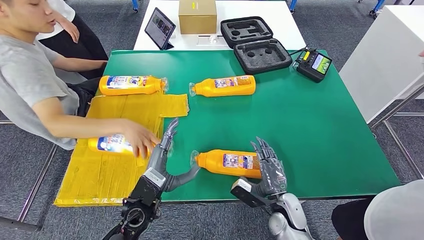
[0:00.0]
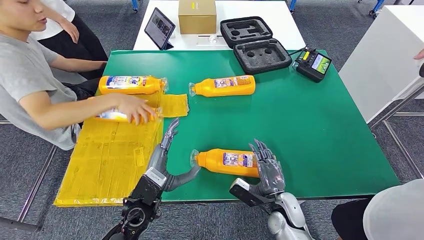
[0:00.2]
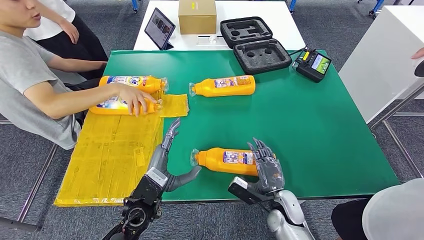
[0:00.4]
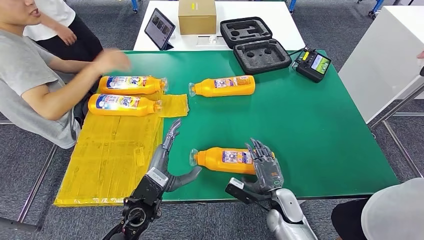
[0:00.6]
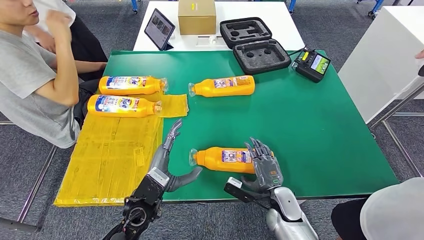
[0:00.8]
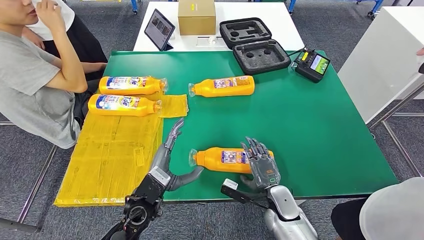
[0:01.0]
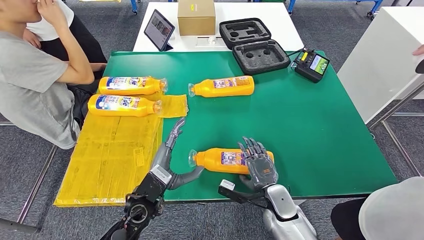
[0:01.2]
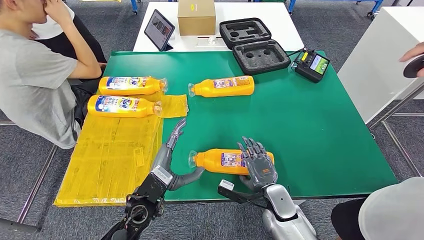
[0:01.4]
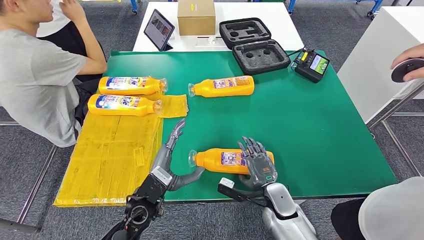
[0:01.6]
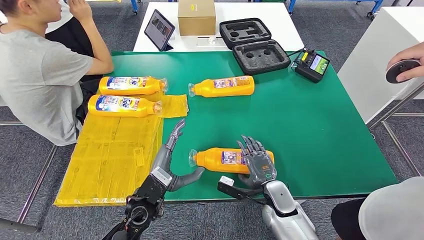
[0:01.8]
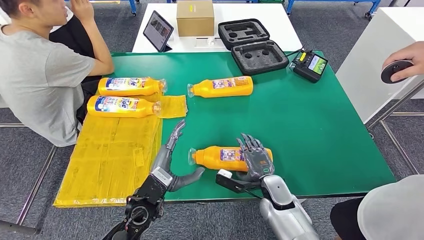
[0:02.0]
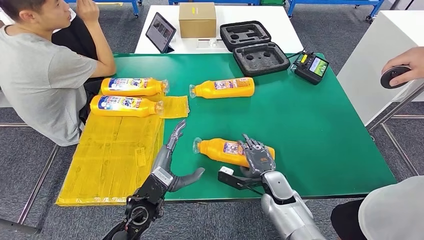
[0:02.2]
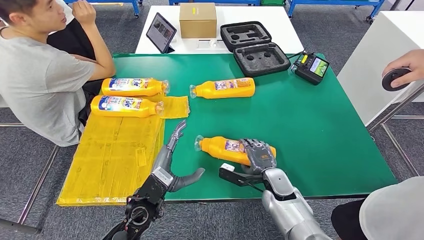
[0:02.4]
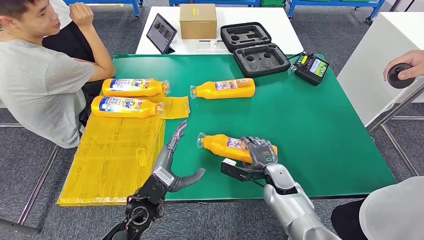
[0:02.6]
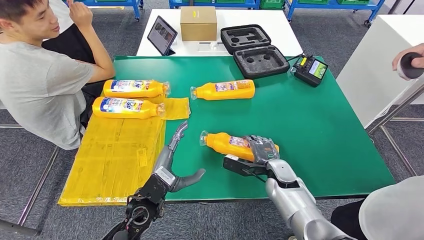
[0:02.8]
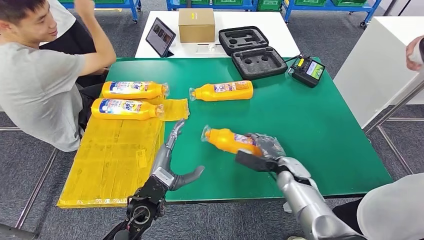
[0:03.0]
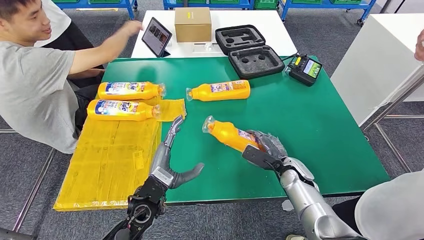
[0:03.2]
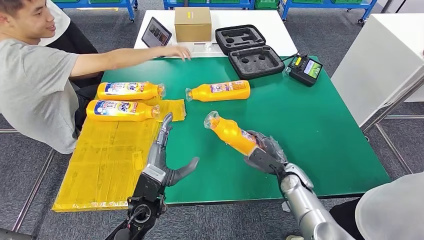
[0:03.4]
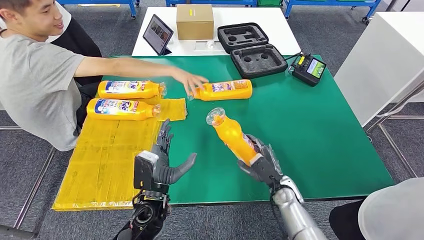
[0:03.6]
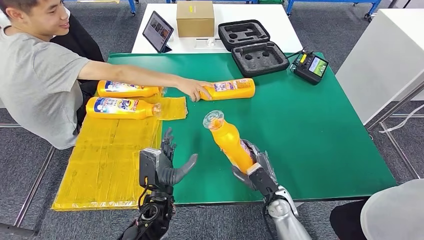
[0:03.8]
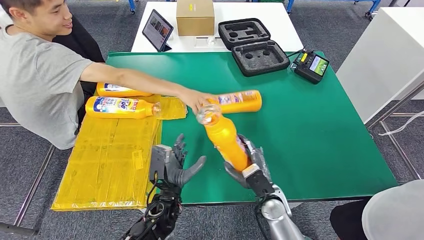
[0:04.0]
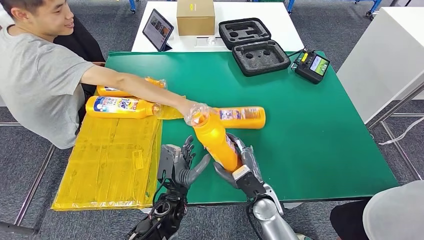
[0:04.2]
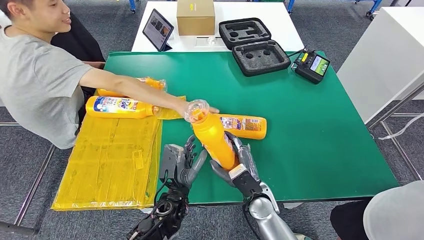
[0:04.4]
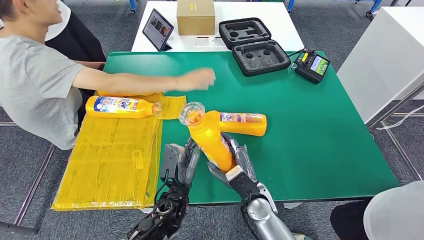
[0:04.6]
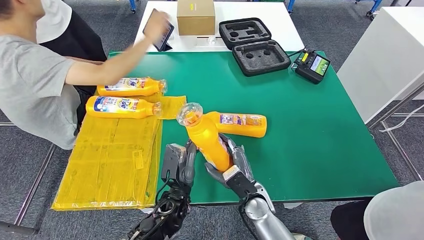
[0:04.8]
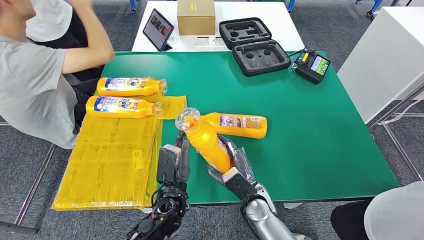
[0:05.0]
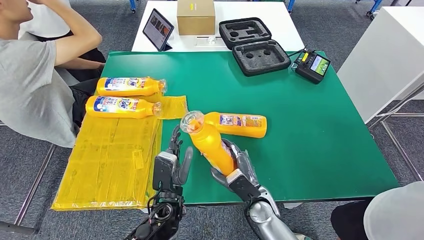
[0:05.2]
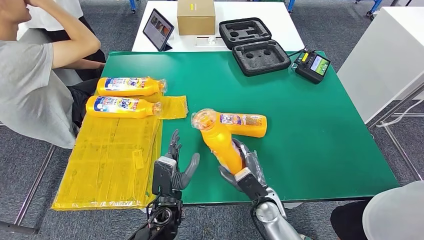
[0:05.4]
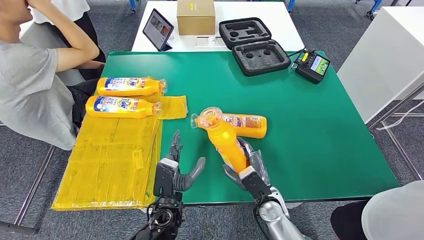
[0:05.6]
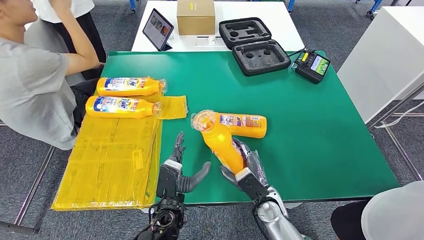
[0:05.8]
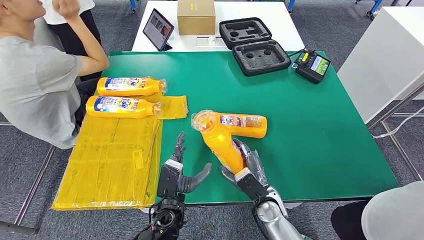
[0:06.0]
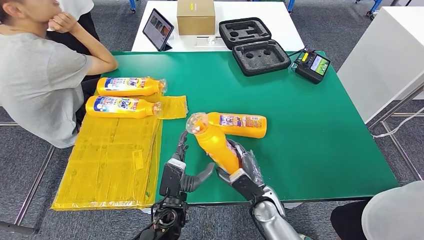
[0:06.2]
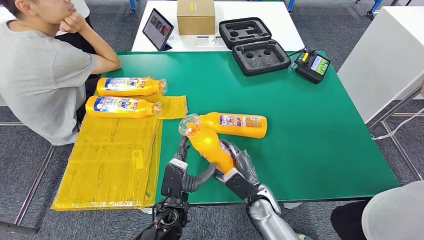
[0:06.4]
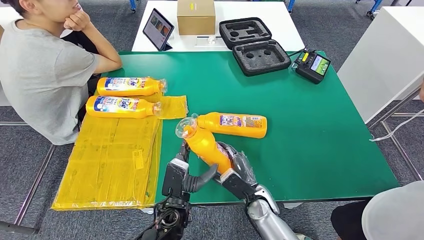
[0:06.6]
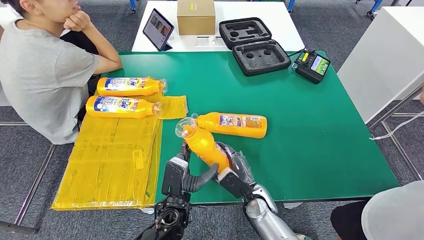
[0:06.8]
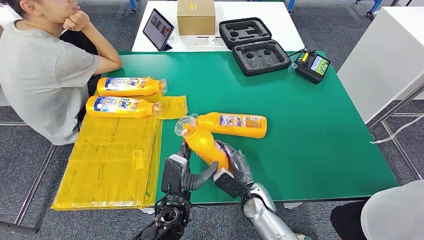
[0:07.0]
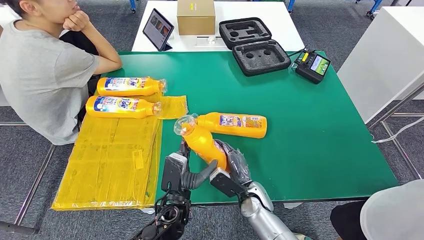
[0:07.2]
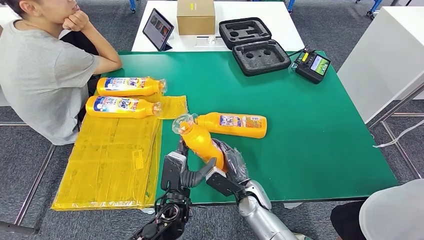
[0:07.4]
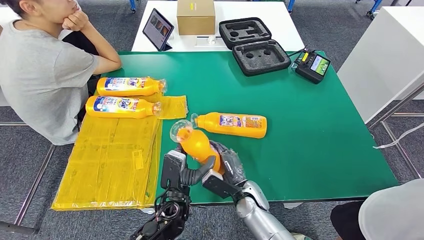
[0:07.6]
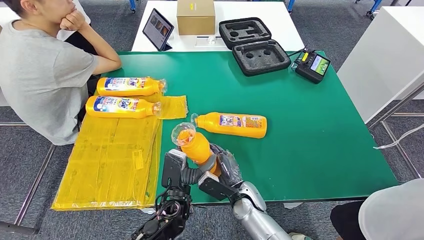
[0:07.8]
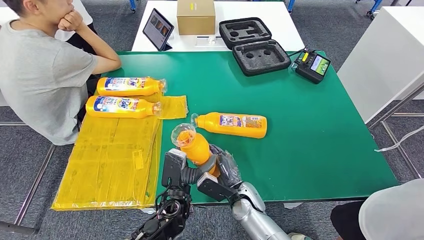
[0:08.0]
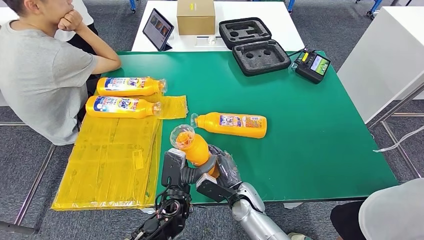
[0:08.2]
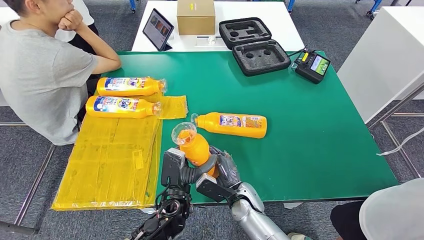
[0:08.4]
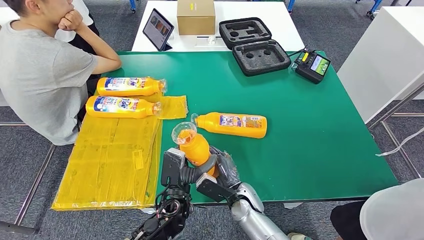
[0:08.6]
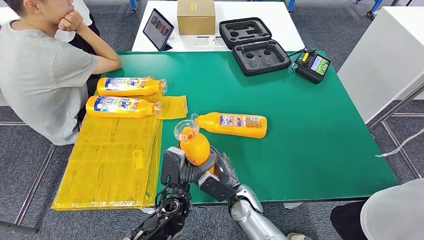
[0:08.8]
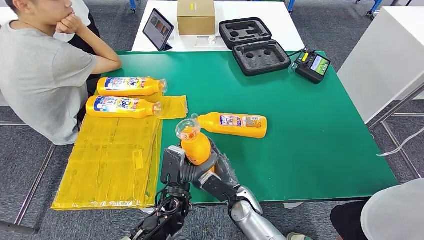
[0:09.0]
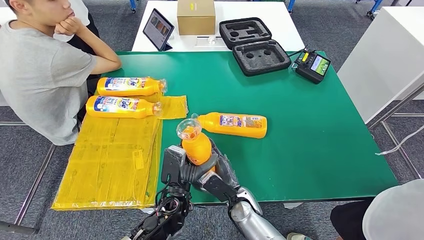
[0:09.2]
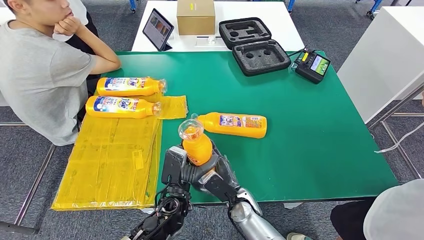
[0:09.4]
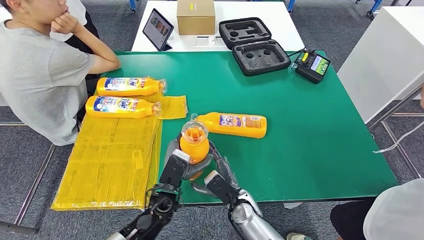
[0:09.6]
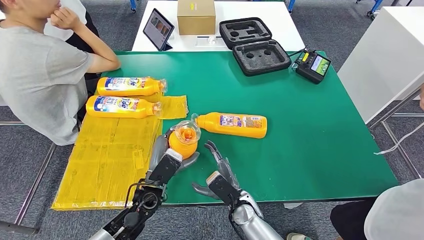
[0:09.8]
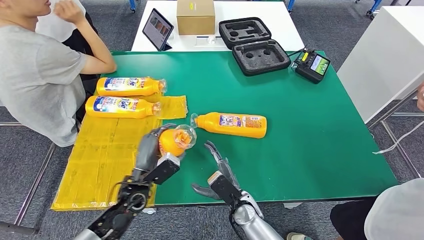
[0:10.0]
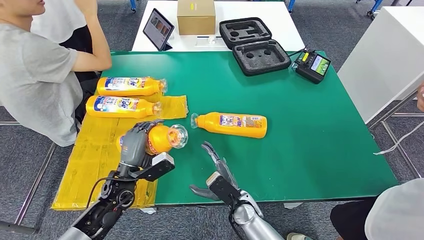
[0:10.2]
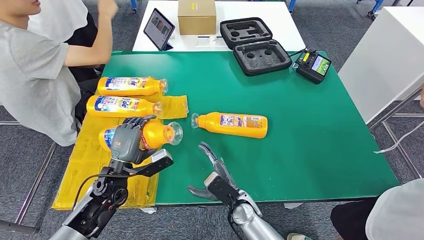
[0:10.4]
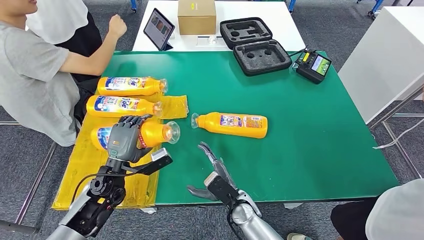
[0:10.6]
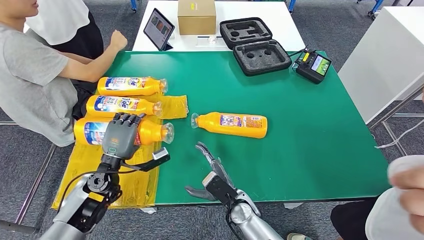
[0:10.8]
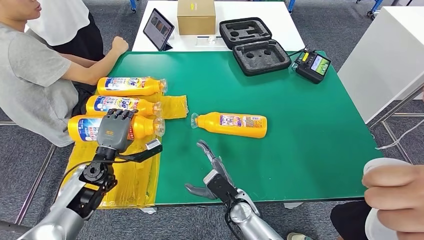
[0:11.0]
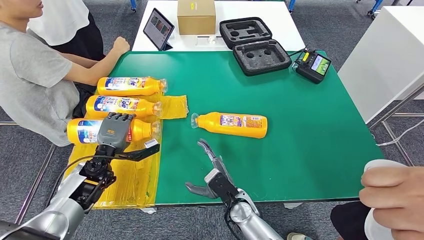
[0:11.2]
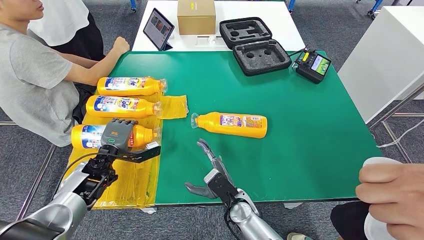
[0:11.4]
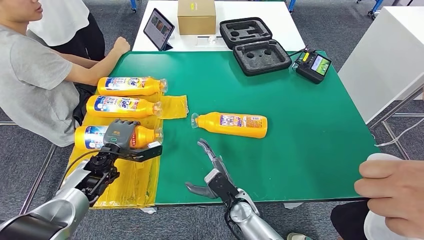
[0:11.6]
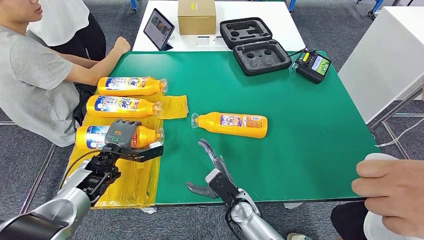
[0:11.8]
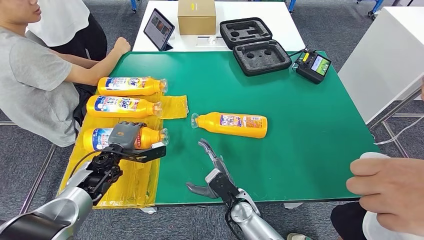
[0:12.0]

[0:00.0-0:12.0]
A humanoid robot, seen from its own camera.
Step, 0:00.0 to 0:03.6: Pick up the bottle from the table.
0:06.0 to 0:07.6: The right hand heads to the left, covering approximately 5 cm.
0:07.6 to 0:09.0: The hands move only a little.
0:10.4 to 0:12.0: The left hand travels forward by about 5 cm.

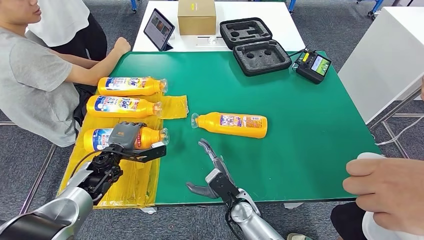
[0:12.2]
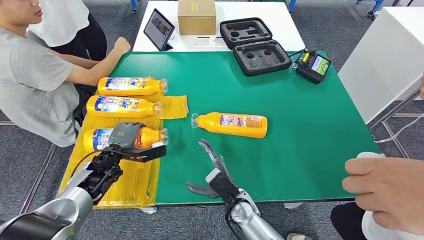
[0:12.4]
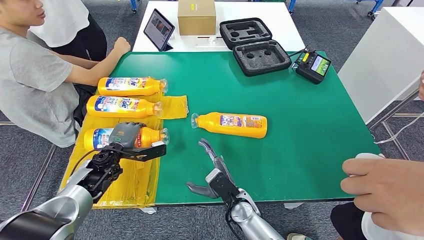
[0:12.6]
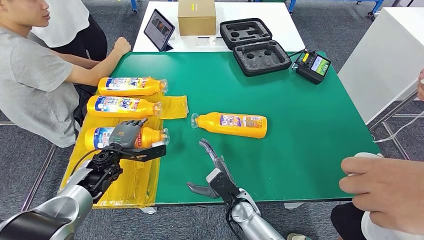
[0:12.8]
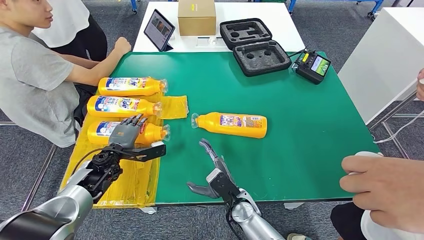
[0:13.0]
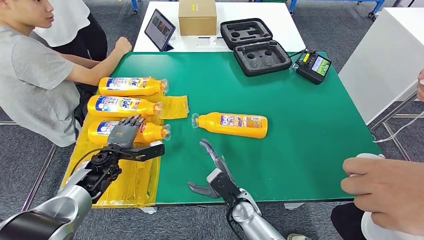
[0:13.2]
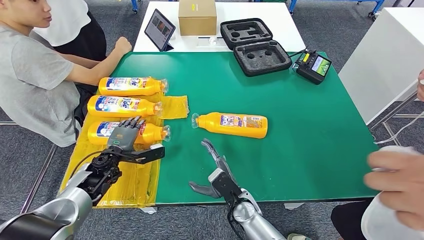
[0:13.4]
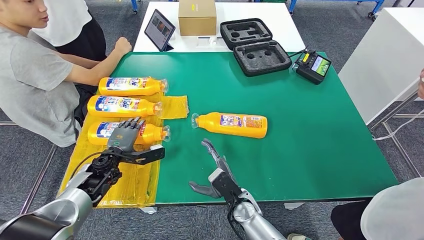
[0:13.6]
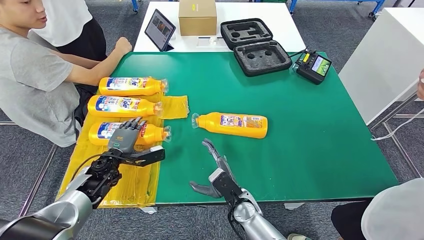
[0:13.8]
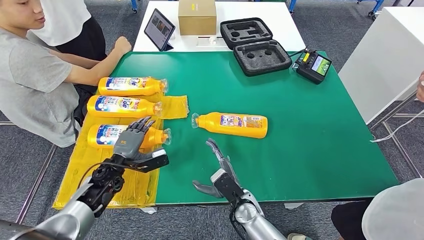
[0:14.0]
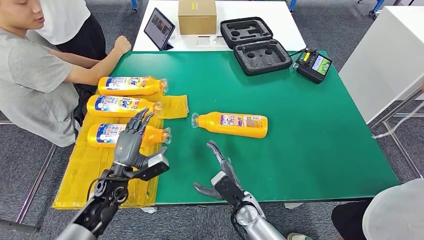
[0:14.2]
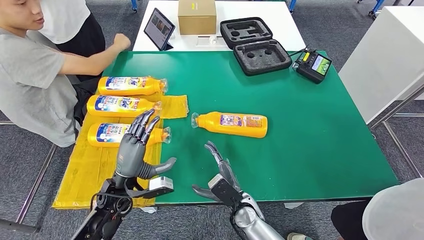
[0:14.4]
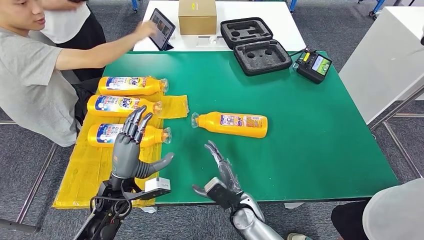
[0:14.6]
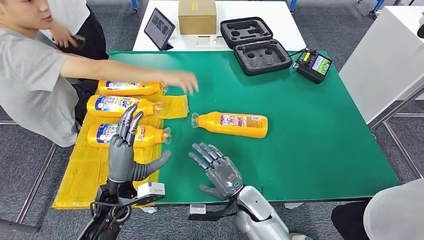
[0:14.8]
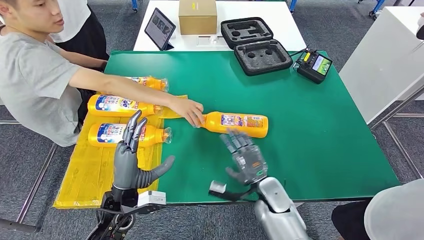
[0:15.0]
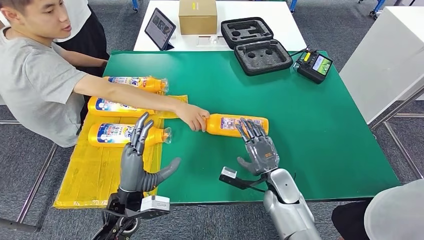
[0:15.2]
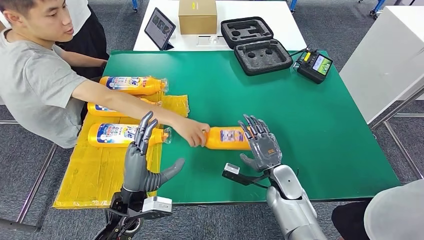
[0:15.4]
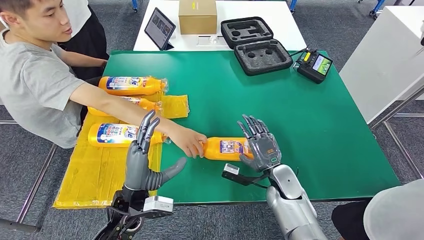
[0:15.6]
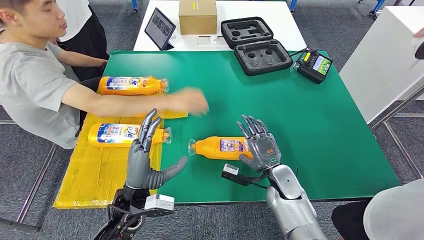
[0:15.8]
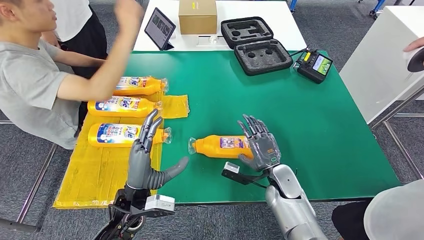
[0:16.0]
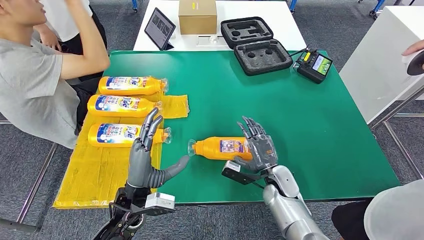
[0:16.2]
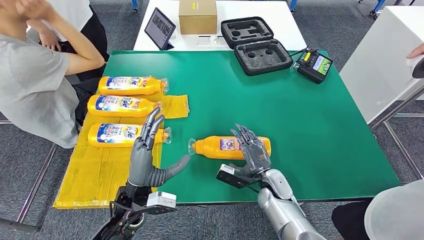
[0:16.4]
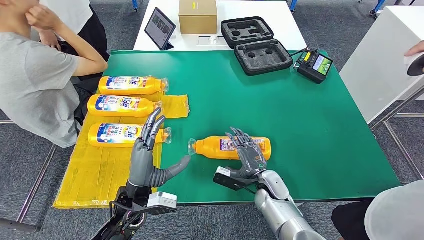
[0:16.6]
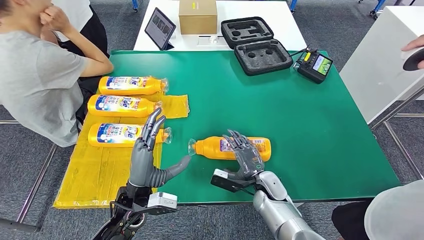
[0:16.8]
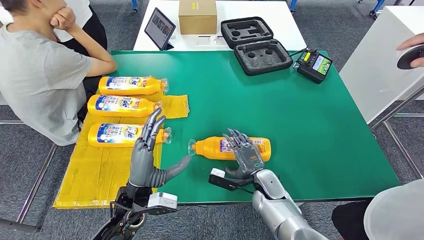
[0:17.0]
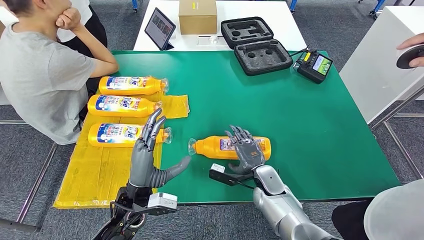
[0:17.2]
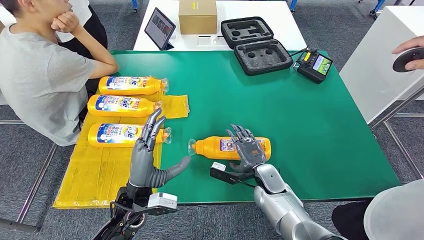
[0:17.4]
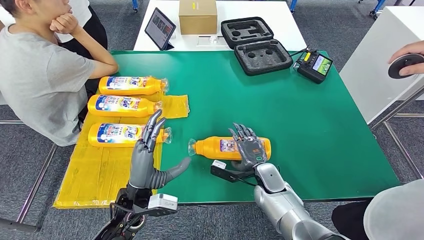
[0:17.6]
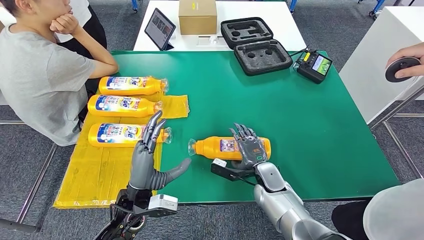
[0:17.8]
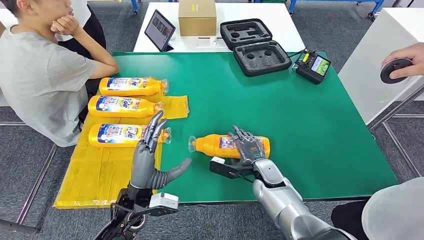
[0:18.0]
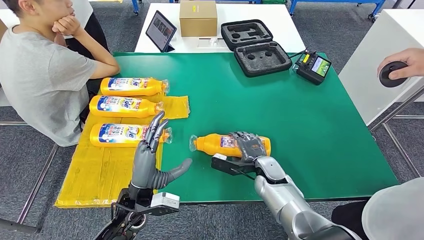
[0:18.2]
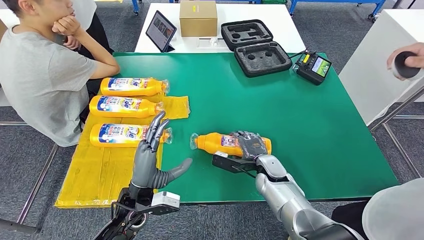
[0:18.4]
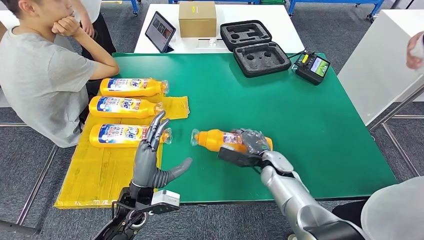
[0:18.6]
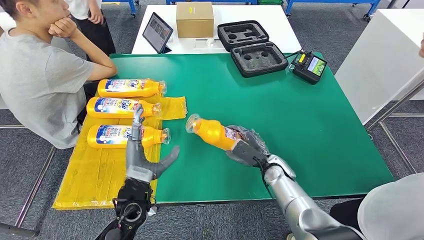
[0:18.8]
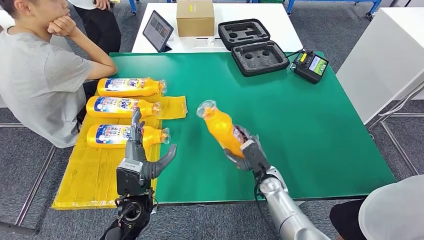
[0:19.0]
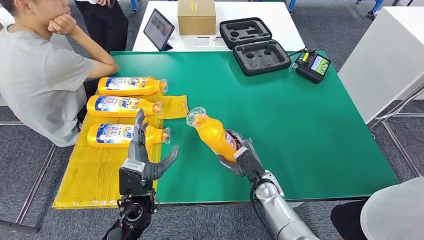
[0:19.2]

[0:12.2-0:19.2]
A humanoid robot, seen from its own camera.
Step, 0:12.2 to 0:15.0: Flip the bottle to face forward.
0:12.2 to 0:13.6: Both hands stay put.
0:16.4 to 0:17.8: The hands move only a little.
